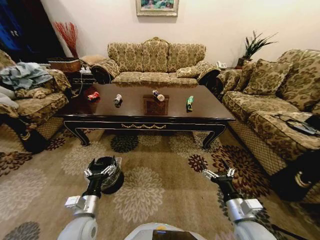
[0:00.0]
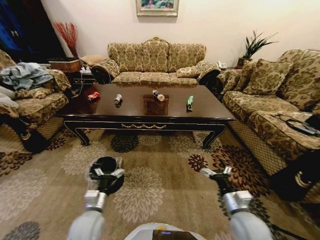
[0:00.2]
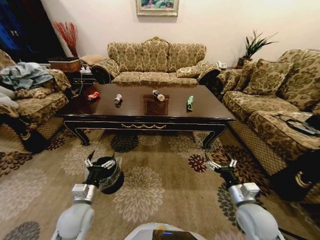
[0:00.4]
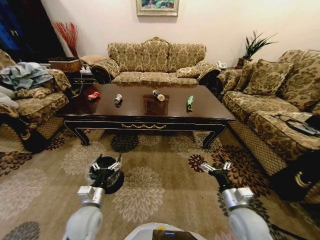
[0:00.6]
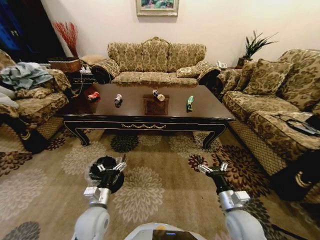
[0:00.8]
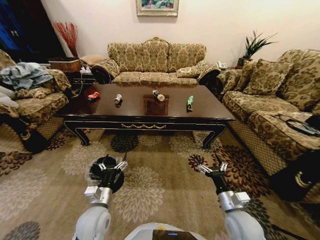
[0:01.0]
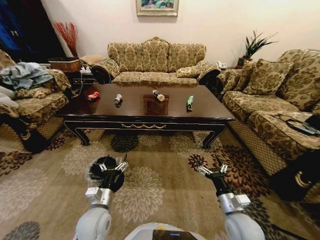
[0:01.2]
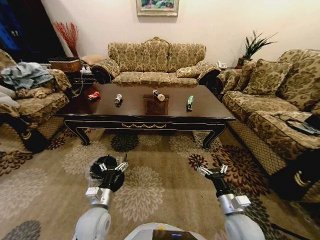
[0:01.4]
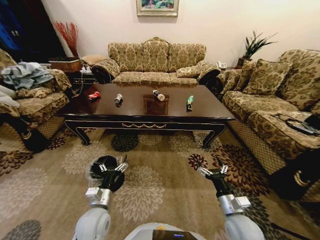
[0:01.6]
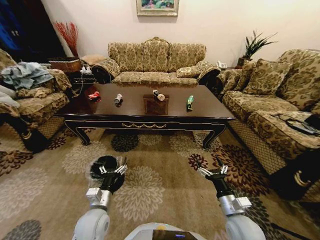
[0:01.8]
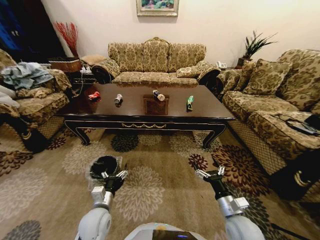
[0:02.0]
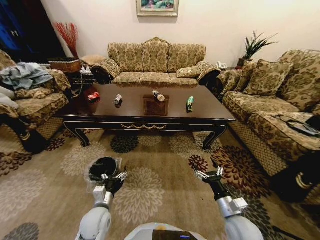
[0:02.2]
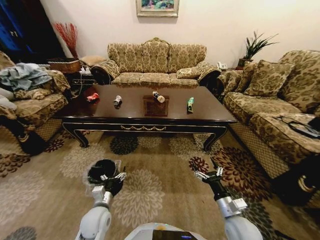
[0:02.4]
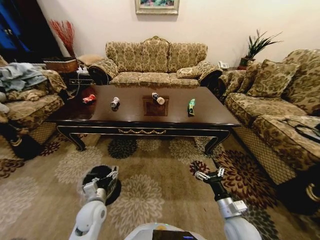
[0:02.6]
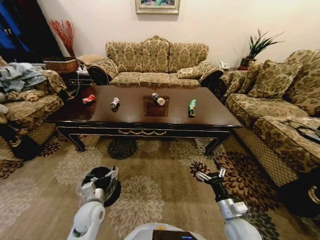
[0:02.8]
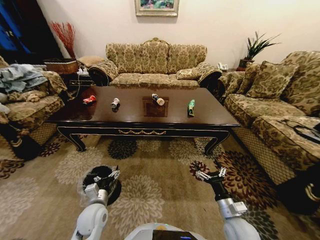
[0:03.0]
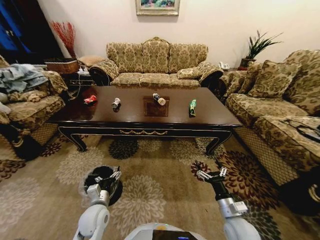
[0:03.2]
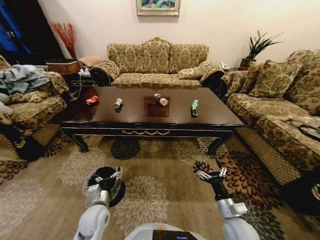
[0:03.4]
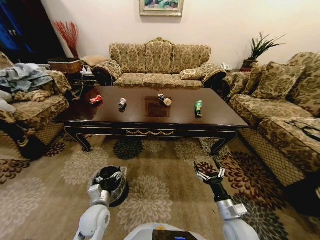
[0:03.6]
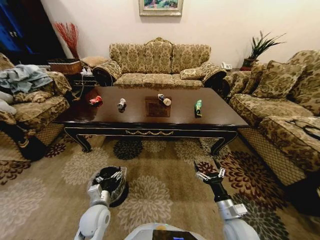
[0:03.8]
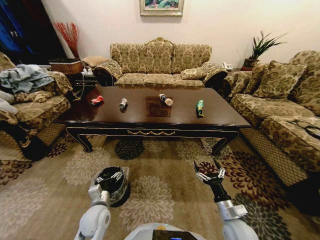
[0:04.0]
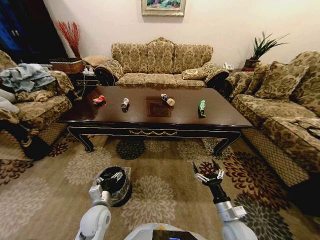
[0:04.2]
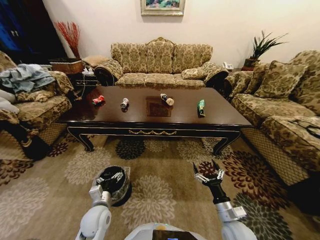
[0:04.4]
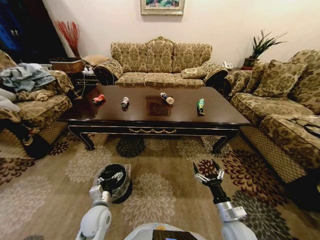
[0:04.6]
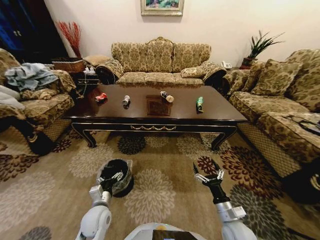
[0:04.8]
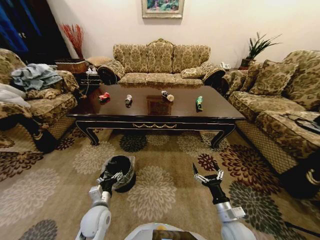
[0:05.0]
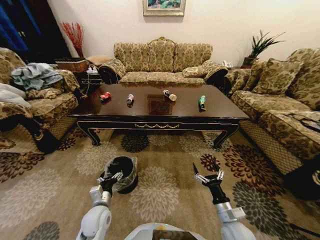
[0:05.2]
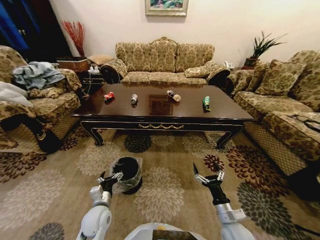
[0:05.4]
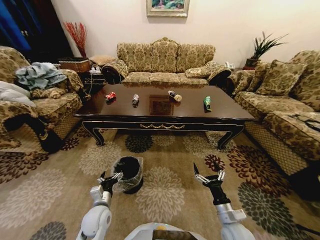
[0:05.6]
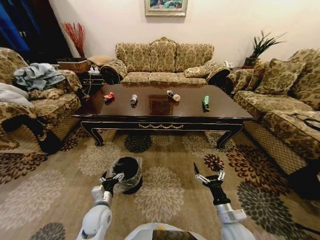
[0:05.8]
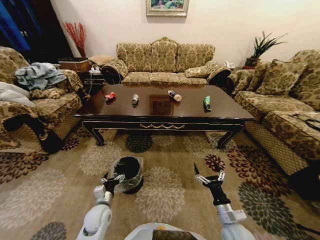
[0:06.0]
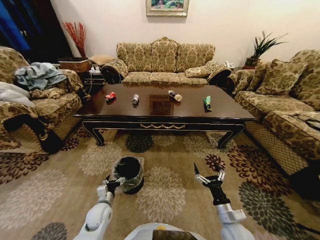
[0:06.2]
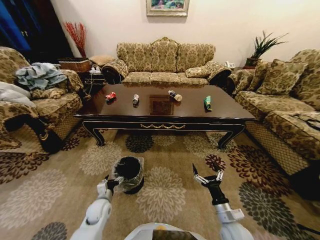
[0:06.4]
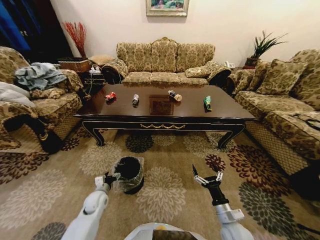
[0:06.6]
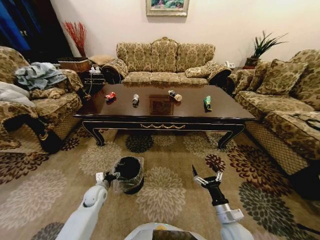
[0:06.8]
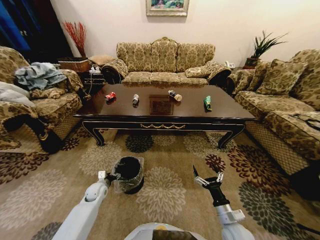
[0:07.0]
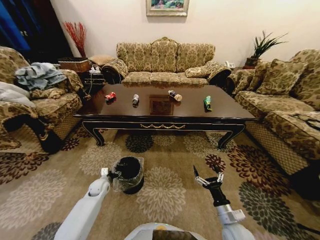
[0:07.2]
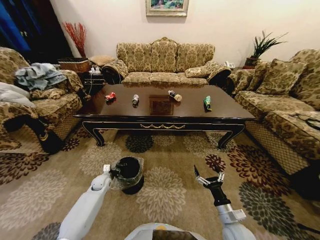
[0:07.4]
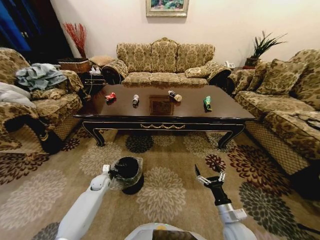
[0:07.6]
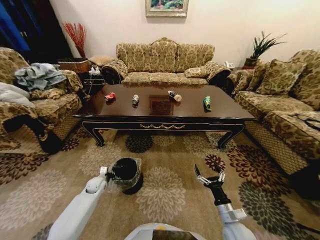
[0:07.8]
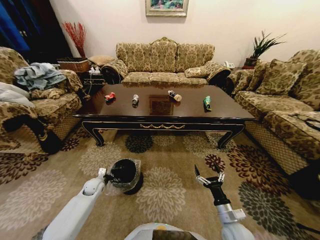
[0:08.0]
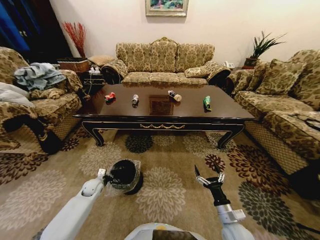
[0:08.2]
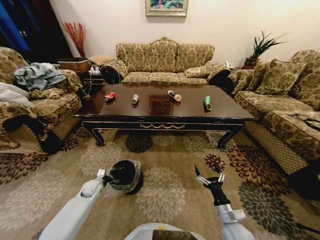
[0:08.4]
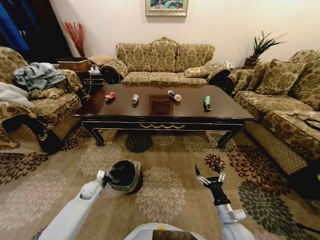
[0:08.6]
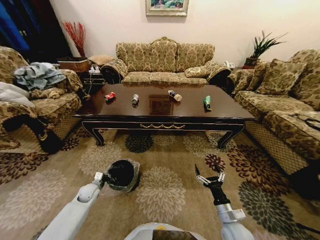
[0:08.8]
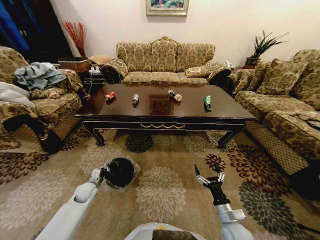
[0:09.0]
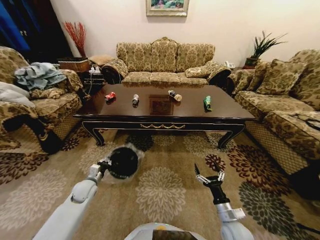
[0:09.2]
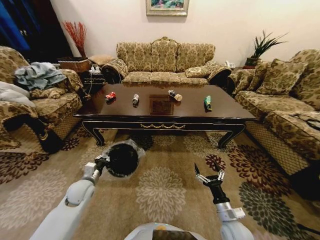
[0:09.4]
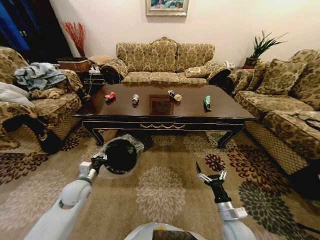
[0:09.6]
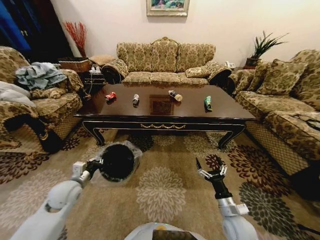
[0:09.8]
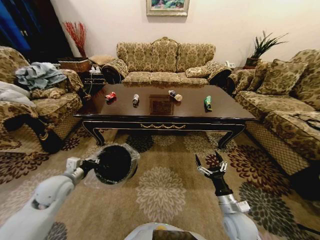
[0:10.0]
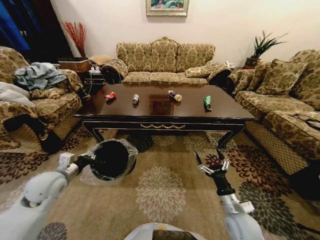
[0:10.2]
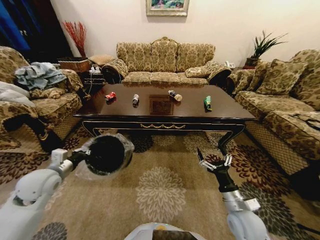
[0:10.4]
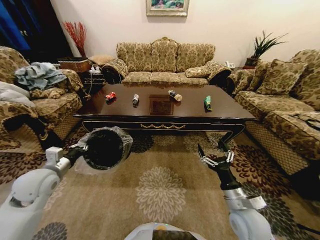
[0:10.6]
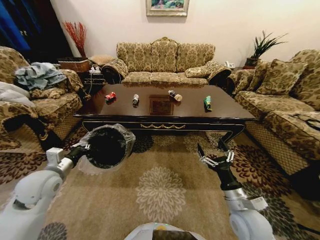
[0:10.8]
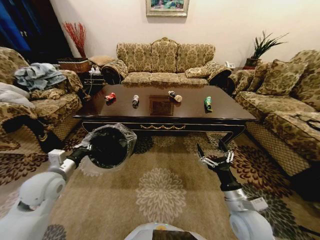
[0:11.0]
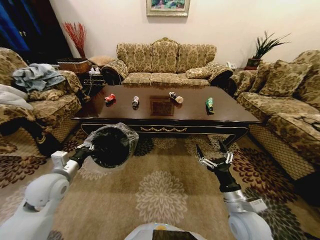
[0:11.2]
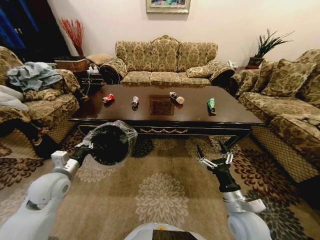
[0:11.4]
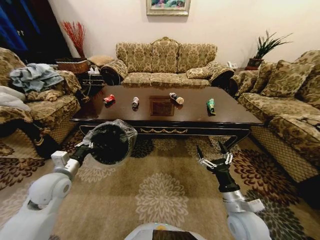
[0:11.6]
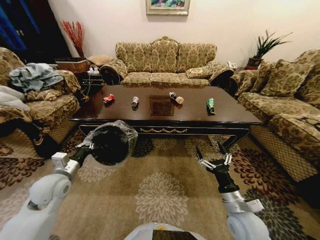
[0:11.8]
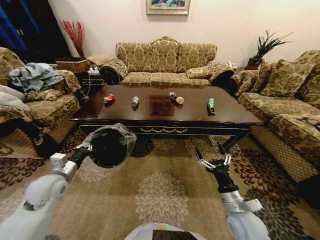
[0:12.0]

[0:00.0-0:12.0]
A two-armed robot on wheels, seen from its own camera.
Task of the whole recording: Move to the front of the table and place the trash on the table into the trash bin.
0:01.6 to 0:03.0: The left gripper ends up approximately 5 cm from where it was.
0:06.0 to 0:07.6: The left gripper goes roughly 20 cm forward and to the left, and closes up.
0:07.6 to 0:09.0: The left gripper travels backward by about 5 cm.
0:09.0 to 0:10.4: The right gripper moves upward, roughly 10 cm. Meanwhile the left gripper shifts about 25 cm upward.

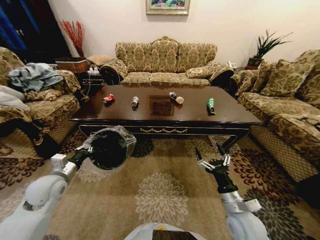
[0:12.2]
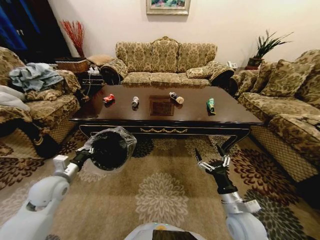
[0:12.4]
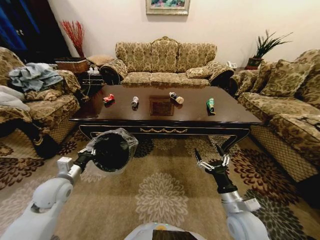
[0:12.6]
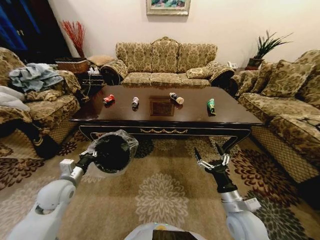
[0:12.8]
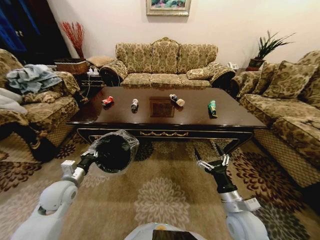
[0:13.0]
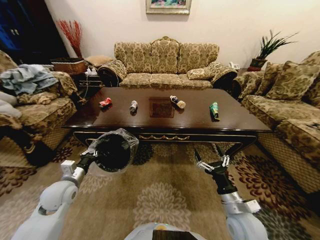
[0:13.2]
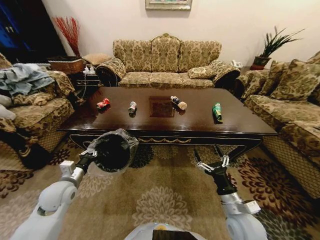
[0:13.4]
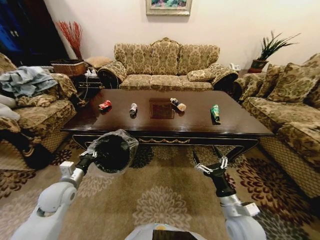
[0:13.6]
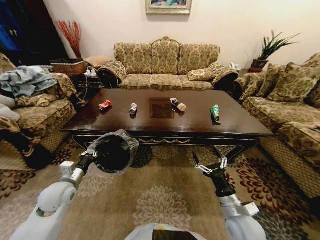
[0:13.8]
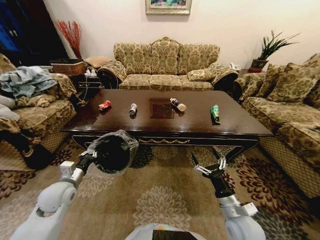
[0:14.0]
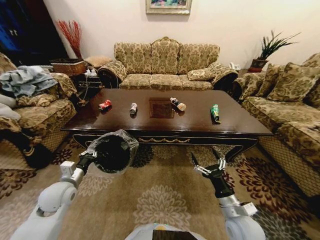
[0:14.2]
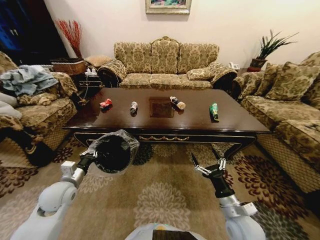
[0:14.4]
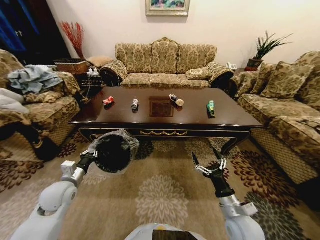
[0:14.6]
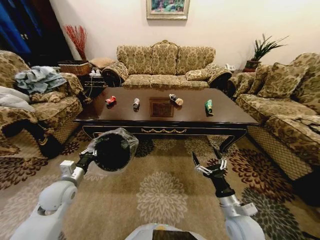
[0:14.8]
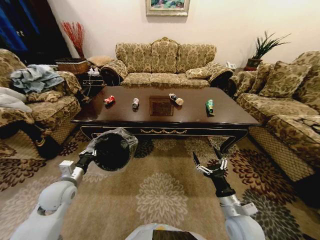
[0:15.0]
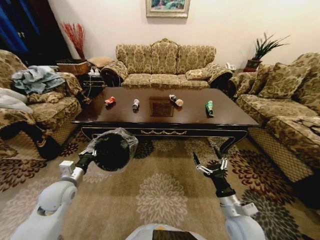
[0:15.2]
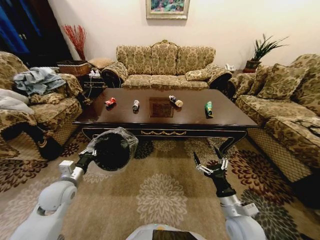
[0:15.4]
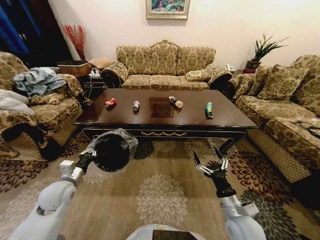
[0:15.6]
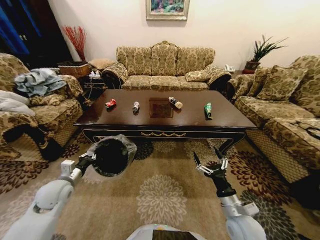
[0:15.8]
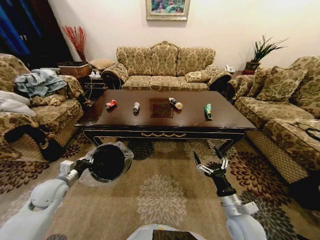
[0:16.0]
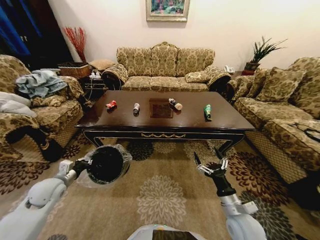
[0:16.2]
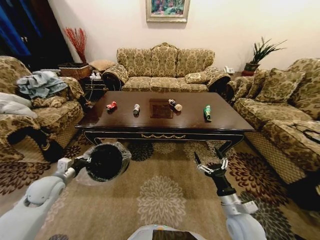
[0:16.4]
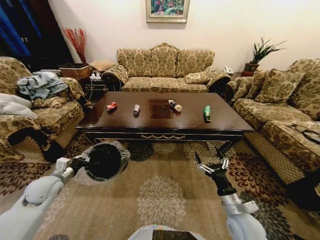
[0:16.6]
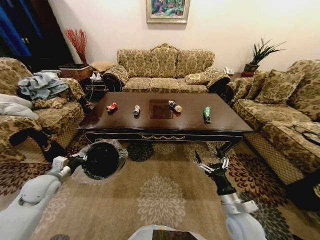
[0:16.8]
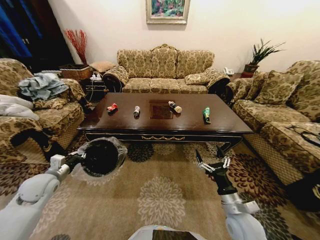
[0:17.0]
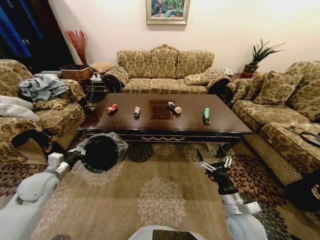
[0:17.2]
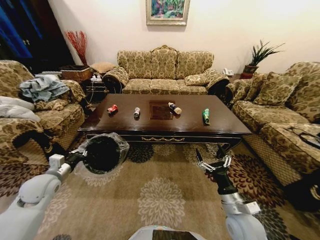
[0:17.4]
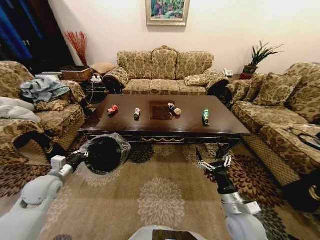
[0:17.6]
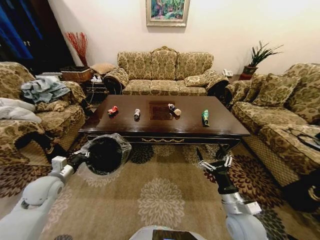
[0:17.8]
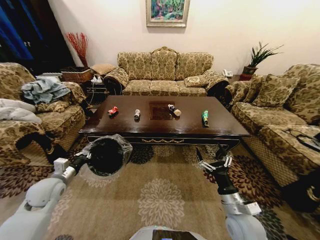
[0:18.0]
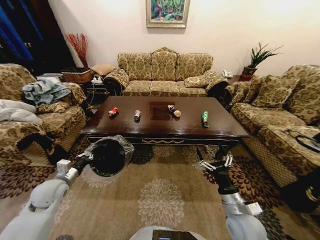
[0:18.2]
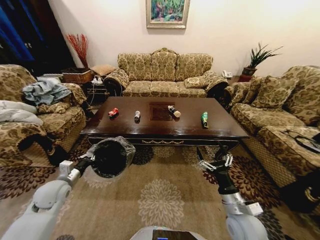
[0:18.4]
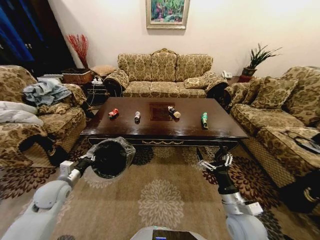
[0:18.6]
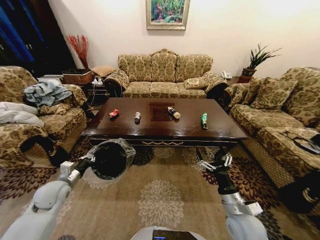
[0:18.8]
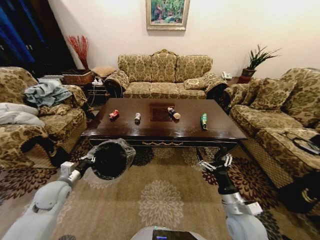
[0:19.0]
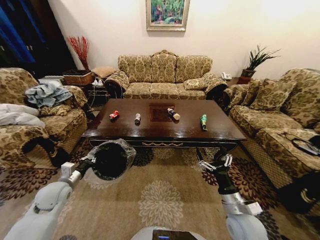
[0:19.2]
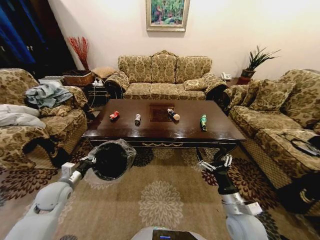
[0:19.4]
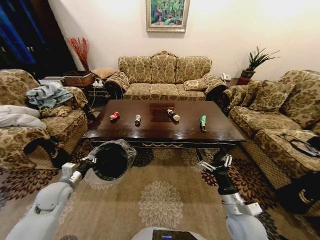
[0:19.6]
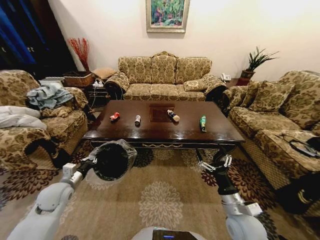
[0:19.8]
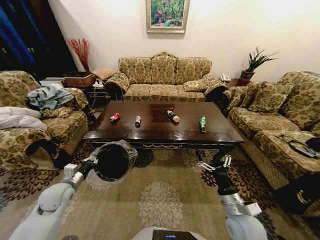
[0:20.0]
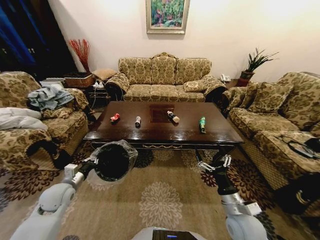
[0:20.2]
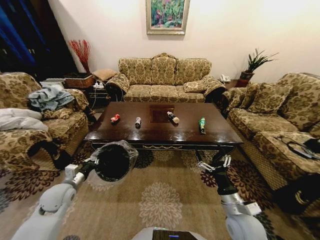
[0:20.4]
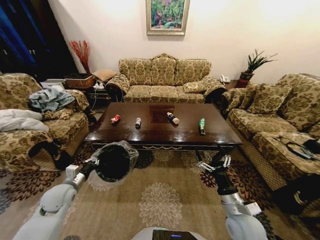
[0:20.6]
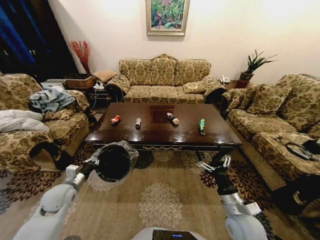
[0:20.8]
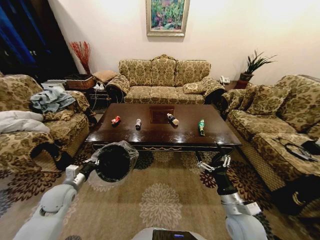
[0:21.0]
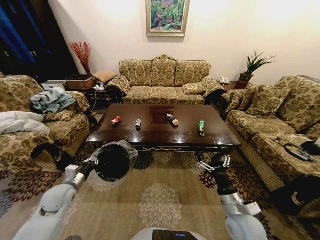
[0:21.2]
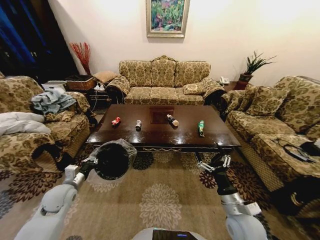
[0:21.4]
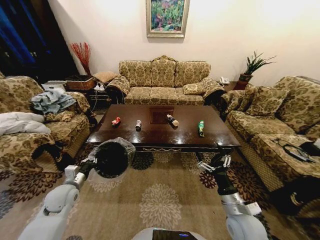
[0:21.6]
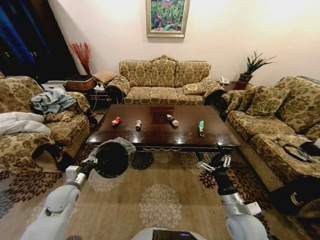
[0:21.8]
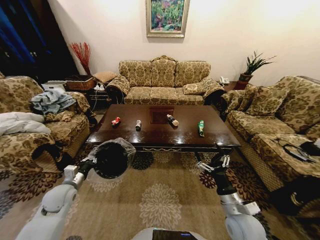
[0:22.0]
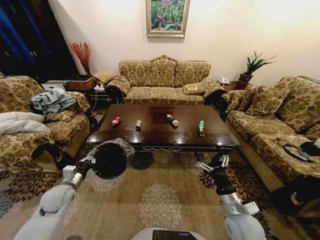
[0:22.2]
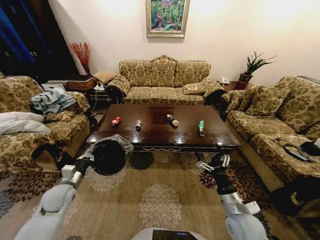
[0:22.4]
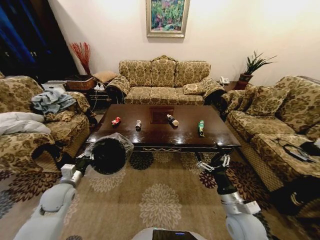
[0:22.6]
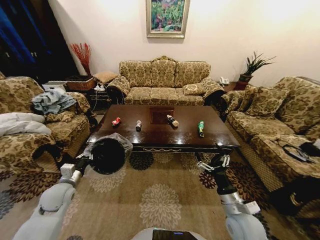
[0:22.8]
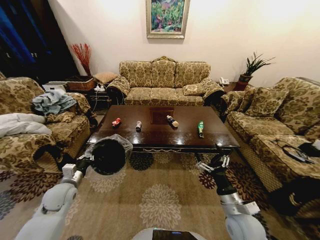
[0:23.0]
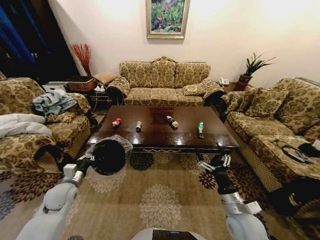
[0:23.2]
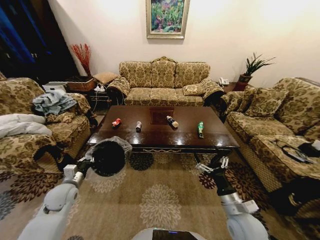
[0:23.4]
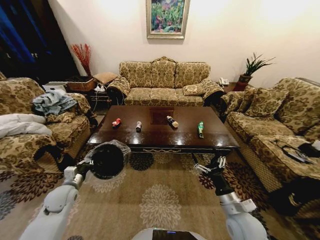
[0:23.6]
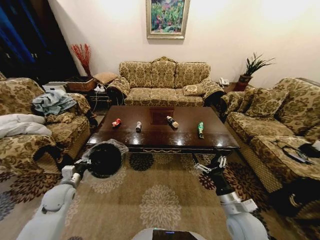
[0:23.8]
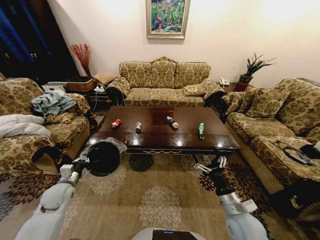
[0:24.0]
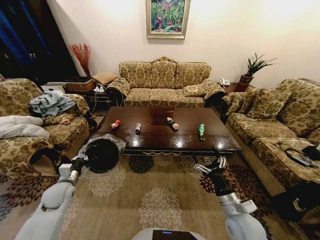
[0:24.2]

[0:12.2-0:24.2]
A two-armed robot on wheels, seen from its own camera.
Task of the whole recording: Move to the front of the table and place the trash on the table into the trash bin.
0:15.2 to 0:16.6: The left gripper moves to the left, some 5 cm.
0:21.2 to 0:22.6: There are only small adjustments of the grippers.
